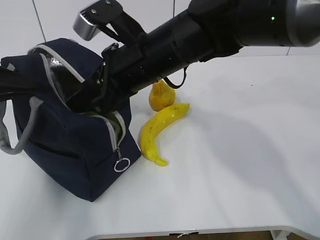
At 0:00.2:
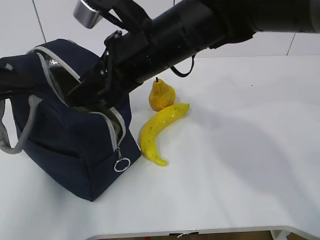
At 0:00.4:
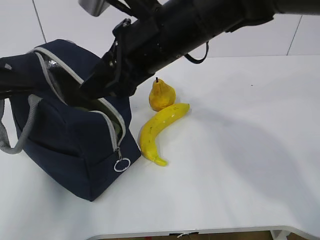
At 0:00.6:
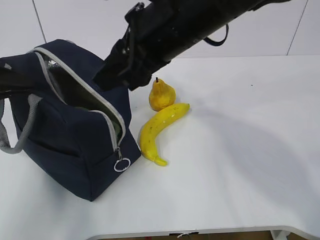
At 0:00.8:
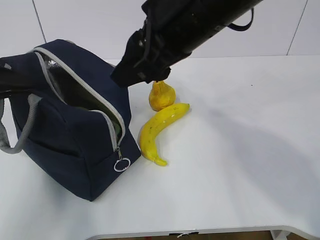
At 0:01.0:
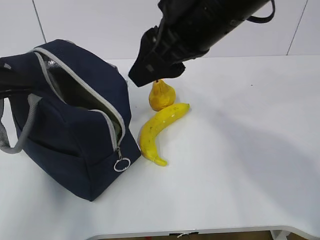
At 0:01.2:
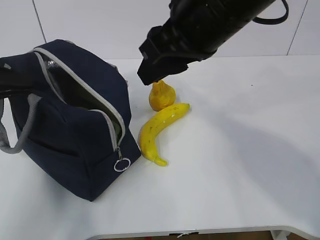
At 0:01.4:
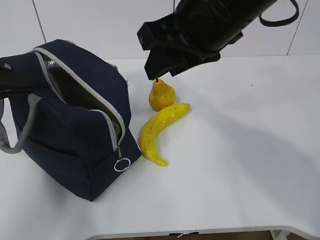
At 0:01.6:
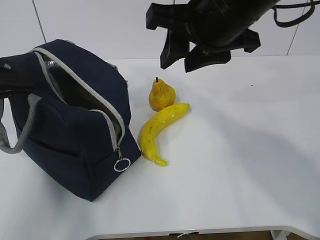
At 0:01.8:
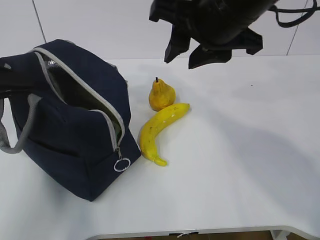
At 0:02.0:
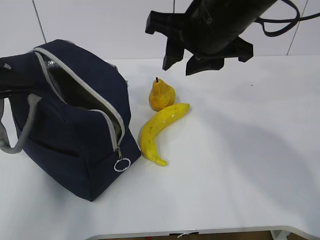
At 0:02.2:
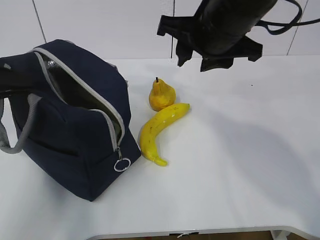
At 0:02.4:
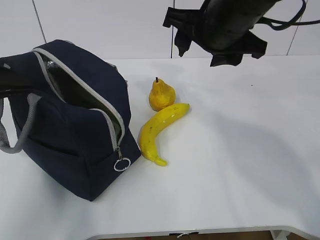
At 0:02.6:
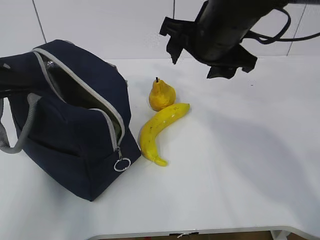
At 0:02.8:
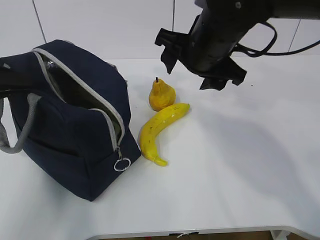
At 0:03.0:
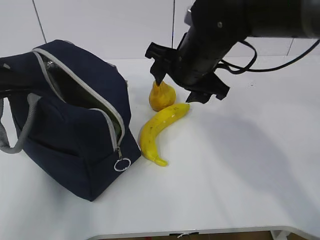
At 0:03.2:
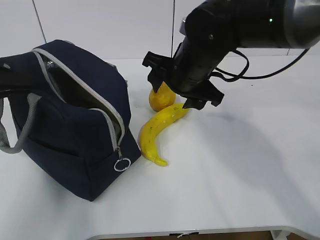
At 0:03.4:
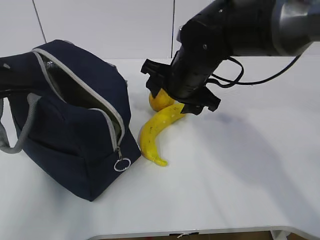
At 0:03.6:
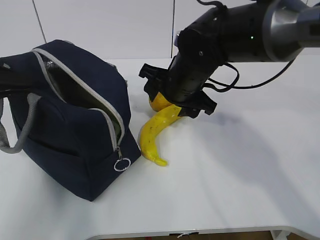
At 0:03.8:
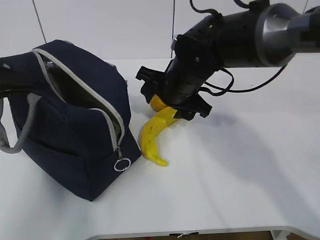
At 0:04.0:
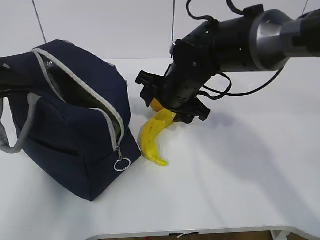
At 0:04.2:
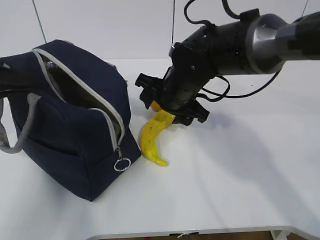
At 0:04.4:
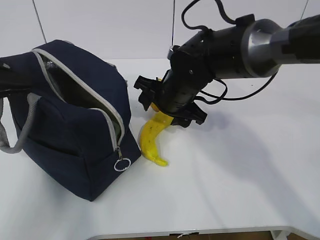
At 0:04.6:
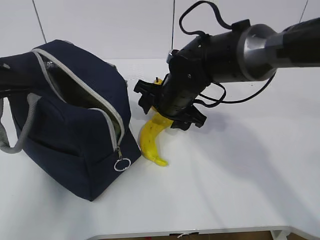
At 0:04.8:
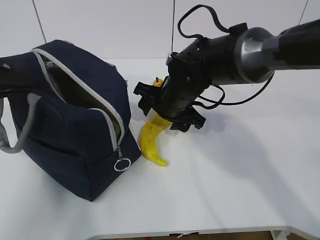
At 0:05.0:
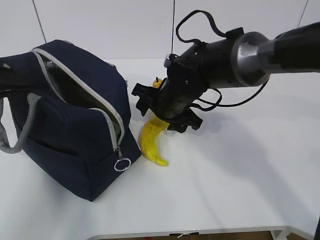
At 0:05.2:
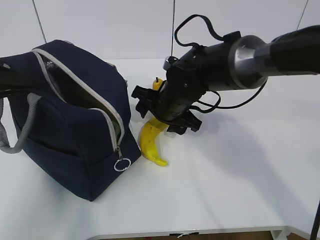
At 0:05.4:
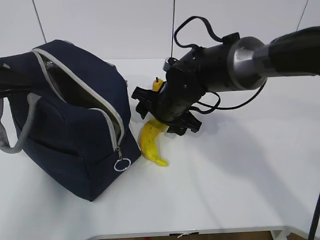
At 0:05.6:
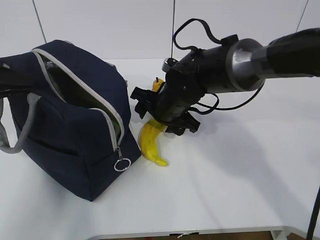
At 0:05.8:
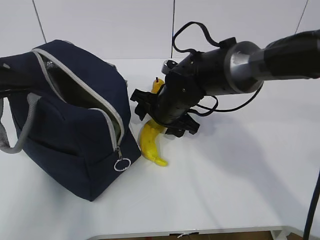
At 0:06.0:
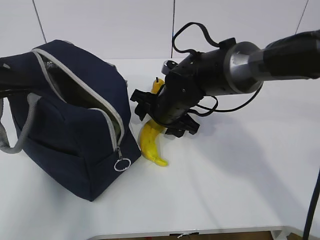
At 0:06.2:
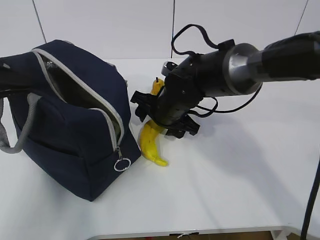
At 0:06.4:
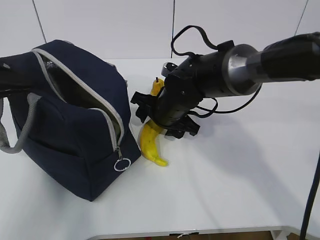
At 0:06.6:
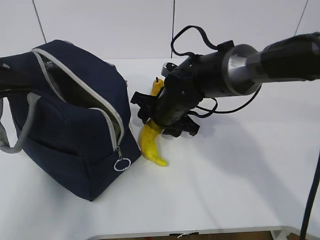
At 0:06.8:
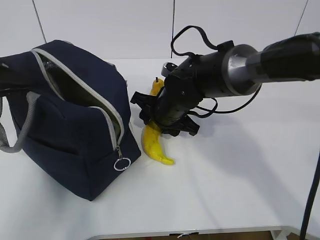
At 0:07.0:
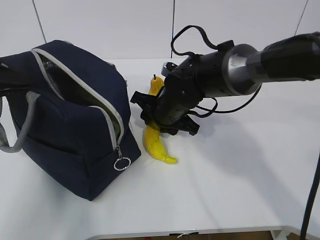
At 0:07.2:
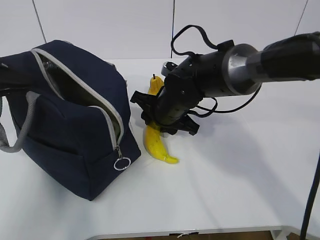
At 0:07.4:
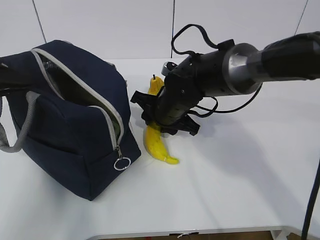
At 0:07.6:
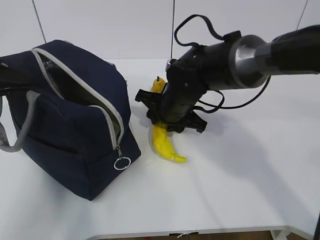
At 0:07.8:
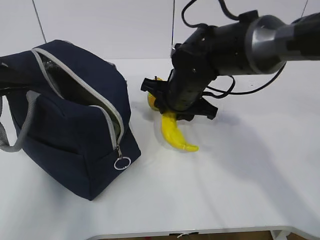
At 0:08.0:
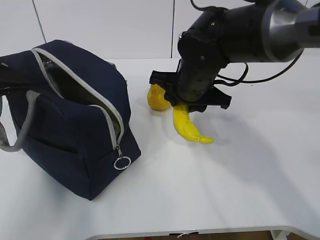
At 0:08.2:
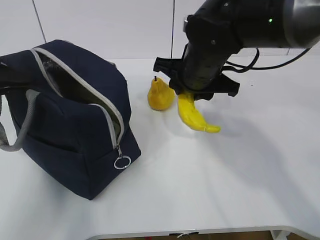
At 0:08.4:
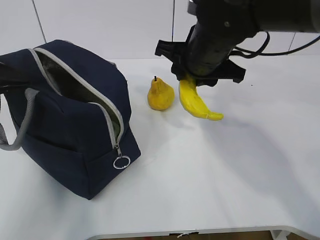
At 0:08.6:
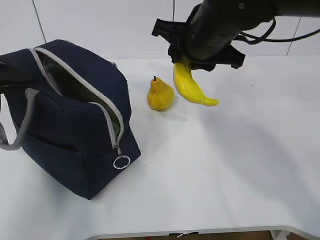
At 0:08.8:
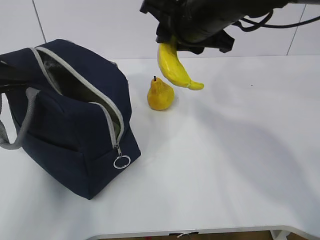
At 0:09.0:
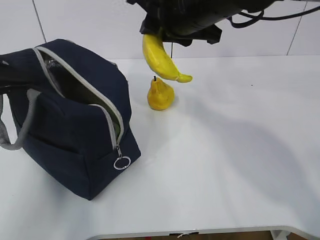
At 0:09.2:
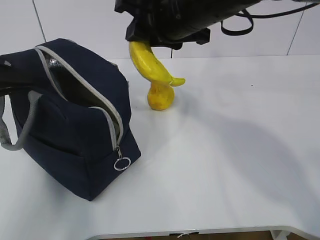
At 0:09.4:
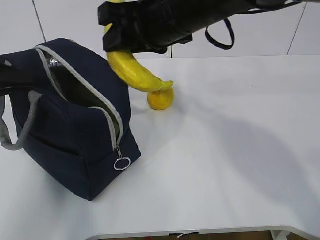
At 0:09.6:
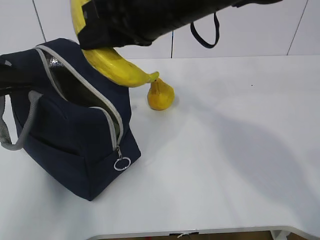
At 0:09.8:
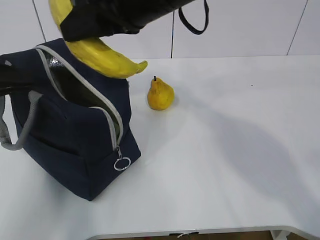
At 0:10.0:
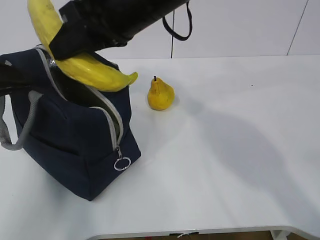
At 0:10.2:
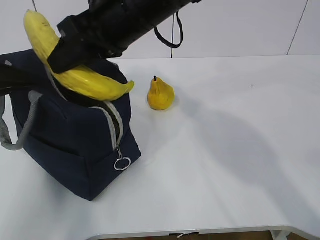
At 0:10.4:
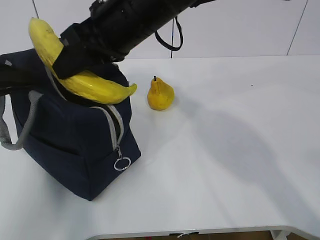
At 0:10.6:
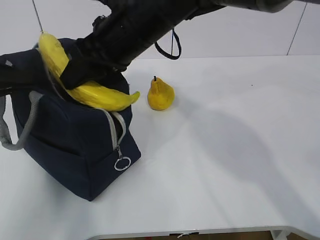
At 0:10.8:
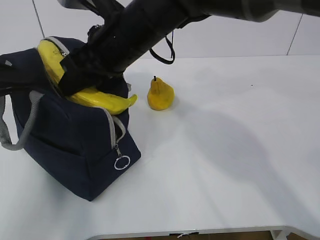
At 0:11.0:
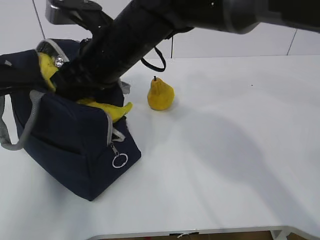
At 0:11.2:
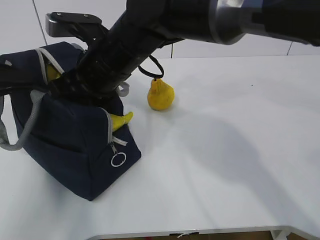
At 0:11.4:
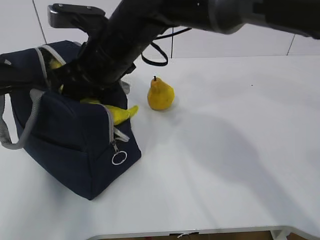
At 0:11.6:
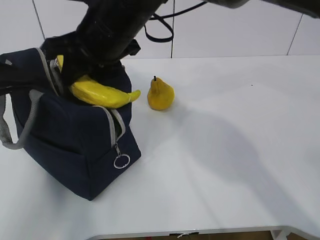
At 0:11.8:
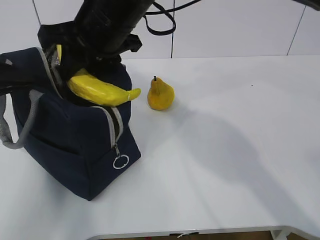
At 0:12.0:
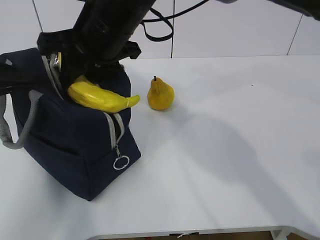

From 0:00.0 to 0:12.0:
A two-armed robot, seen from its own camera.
Step, from 0:02.0 to 0:07.0: Place it into the bag with your right hand.
From 0:00.0 to 0:01.6: The right gripper is displaced to the right and upward by some 10 cm.
From 0:01.6 to 0:03.0: The right gripper moves downward and forward, approximately 10 cm, and opens up.
From 0:03.0 to 0:04.4: The right gripper is displaced downward by some 5 cm.
From 0:04.4 to 0:06.0: There are only small adjustments of the grippers.
From 0:06.0 to 0:07.6: The right gripper closes.
From 0:07.6 to 0:09.0: The right gripper travels upward by some 15 cm.
From 0:09.0 to 0:10.4: The right gripper travels to the left by approximately 5 cm.

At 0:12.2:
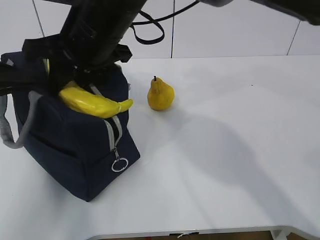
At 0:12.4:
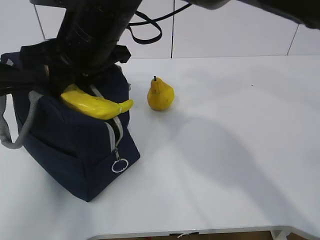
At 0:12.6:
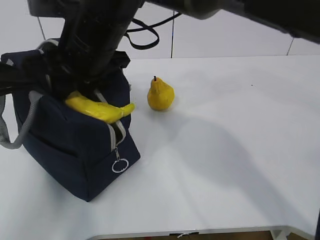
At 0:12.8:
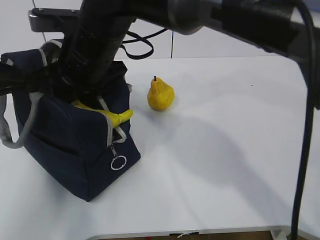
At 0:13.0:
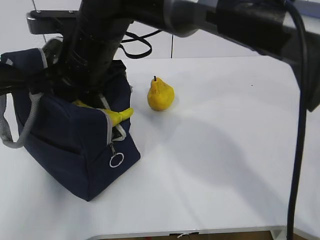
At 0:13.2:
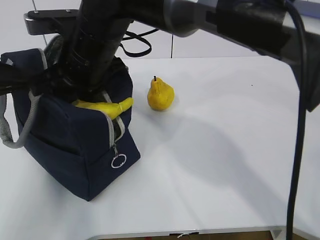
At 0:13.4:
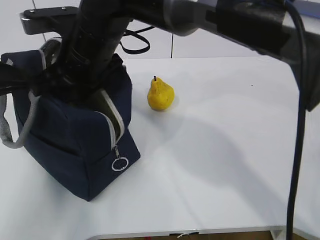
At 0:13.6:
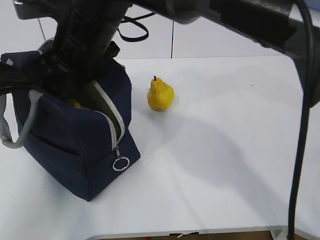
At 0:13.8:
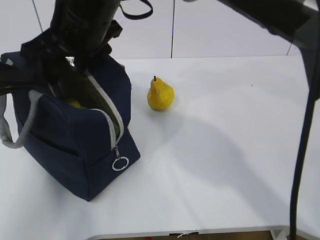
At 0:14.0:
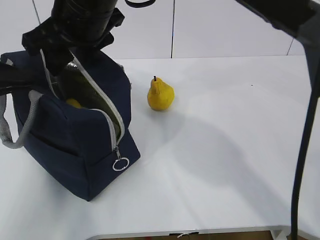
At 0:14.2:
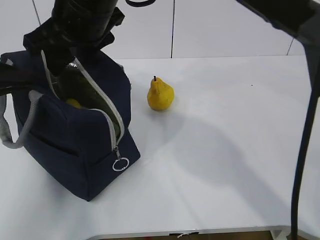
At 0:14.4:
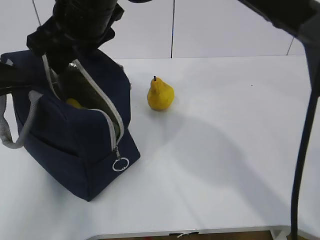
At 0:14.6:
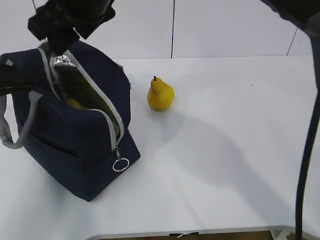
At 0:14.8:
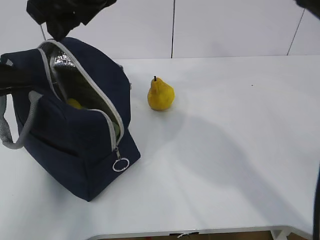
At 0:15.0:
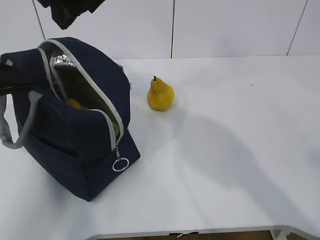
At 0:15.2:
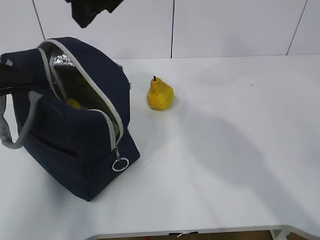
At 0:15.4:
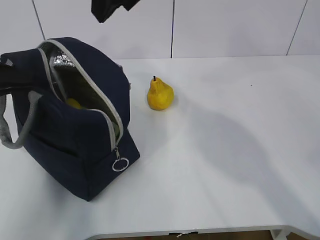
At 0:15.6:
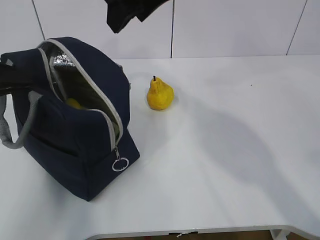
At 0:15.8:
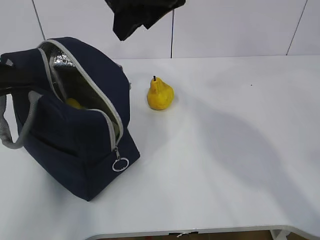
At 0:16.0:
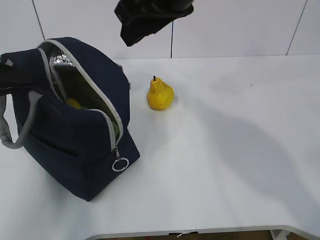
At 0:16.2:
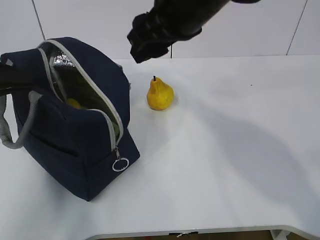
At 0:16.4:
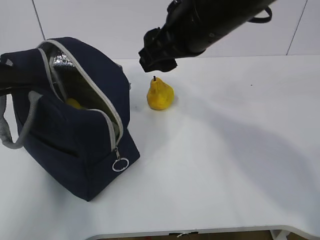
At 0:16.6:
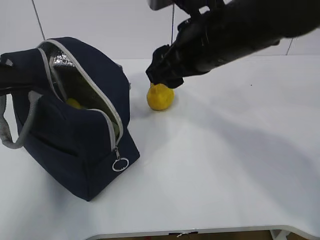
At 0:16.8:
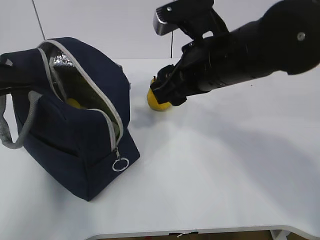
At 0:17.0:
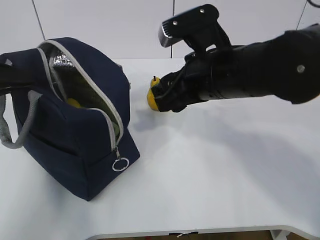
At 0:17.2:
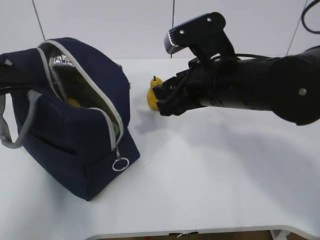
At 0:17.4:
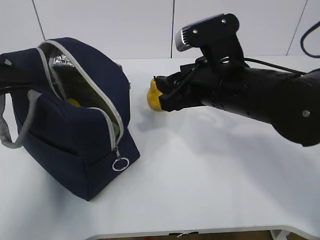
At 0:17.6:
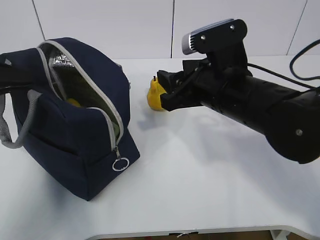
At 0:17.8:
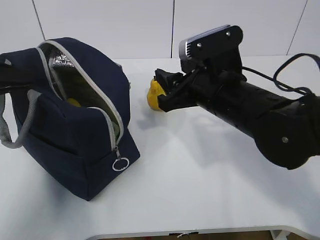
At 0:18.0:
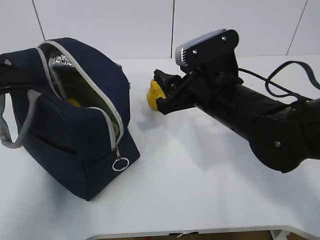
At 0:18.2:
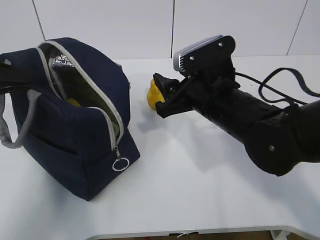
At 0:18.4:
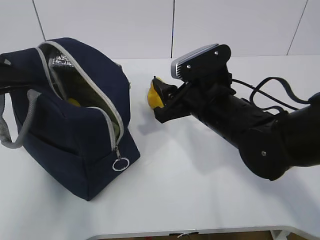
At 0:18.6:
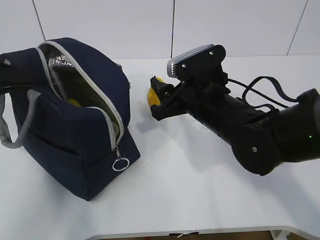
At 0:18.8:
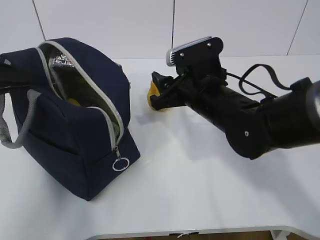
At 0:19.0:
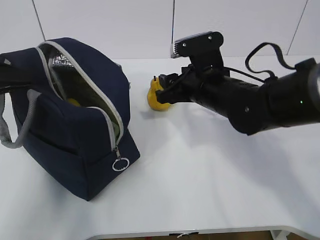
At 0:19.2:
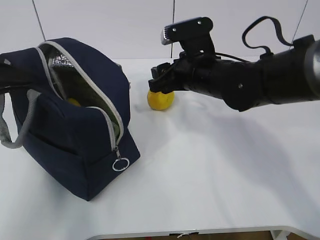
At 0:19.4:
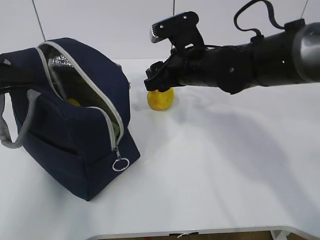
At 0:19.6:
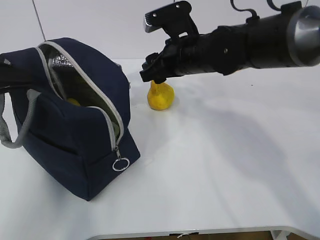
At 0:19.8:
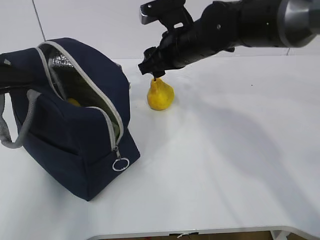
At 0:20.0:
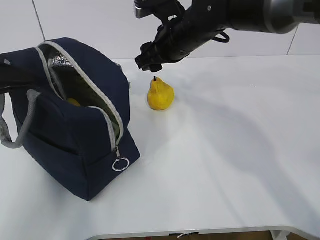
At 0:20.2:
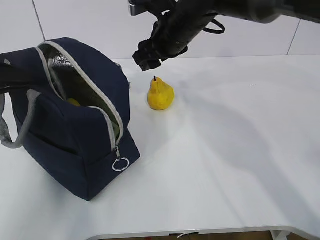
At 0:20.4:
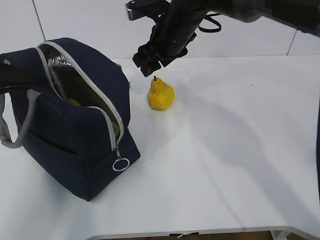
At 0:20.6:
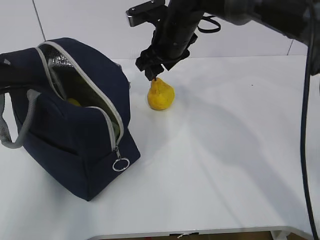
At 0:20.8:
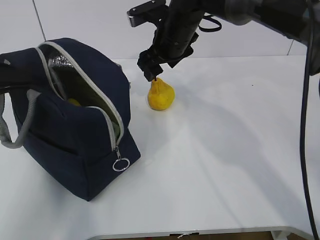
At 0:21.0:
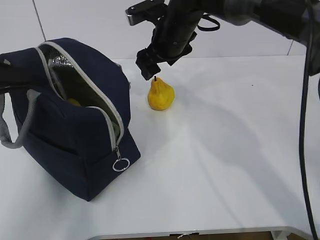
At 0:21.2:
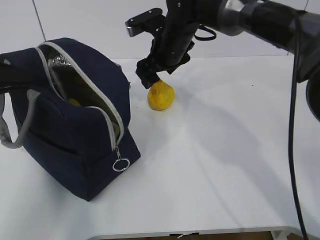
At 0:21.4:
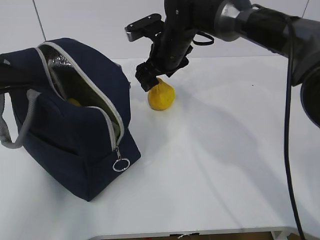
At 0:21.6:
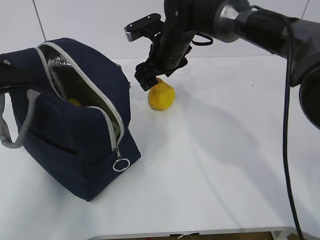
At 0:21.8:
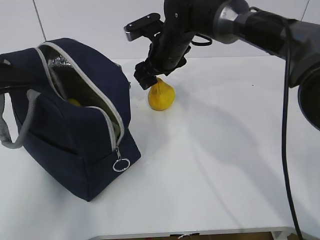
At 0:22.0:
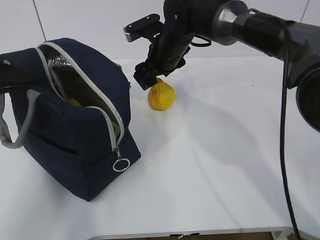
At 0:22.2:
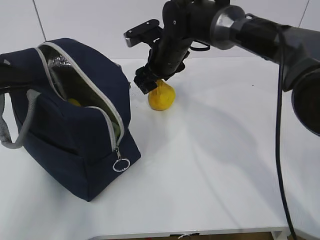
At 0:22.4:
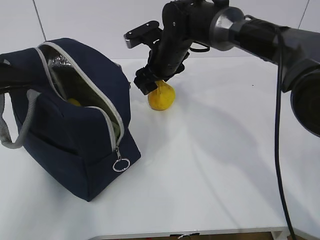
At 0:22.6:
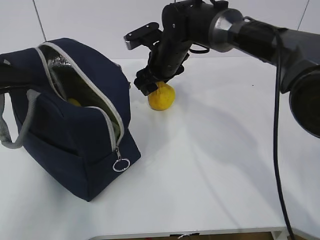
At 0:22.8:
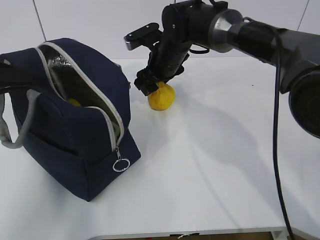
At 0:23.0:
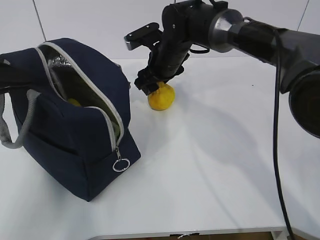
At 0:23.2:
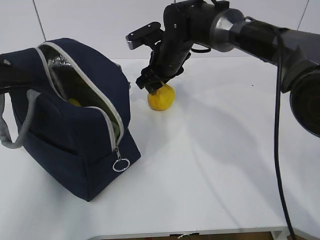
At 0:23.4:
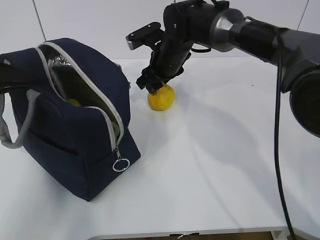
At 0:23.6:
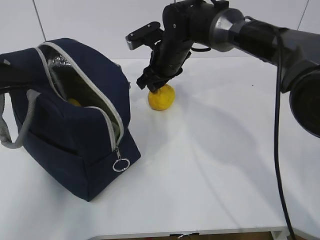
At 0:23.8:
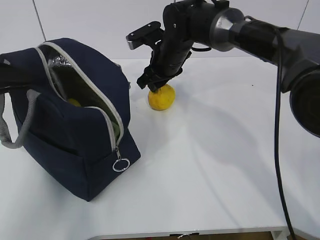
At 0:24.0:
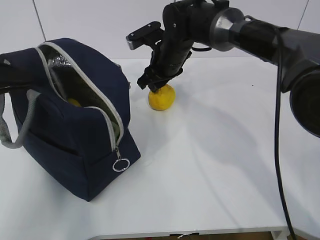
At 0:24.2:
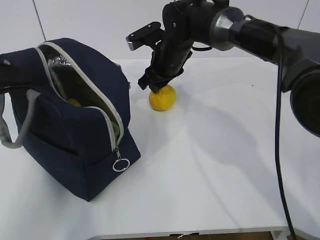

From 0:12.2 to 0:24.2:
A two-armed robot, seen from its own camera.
Step, from 0:12.2 to 0:15.4: Grab the pear with your right hand.
Step, from 0:20.0 to 0:22.2: Grab the lunch bag with your right hand.
From 0:12.2 to 0:13.8: The grippers move only a little.
From 0:13.8 to 0:15.2: The right gripper heads upward and to the right, covering some 10 cm.
From 0:15.2 to 0:16.6: The right gripper heads downward and to the right, covering about 15 cm.
From 0:16.6 to 0:18.2: The right gripper heads downward, covering some 10 cm.
From 0:18.2 to 0:19.8: The right gripper is displaced forward by about 10 cm.
From 0:19.8 to 0:21.2: The right gripper goes approximately 5 cm forward.
From 0:21.2 to 0:22.6: The grippers make only small movements.
From 0:22.6 to 0:24.2: The right gripper closes up.
